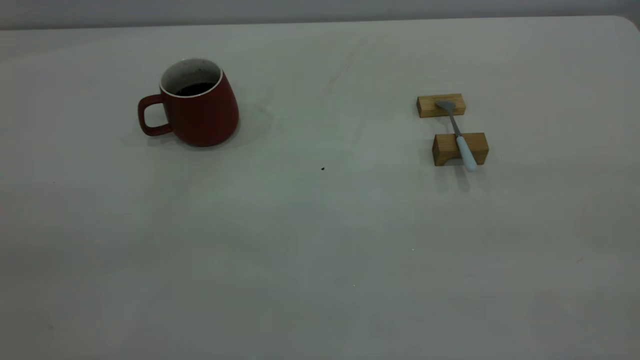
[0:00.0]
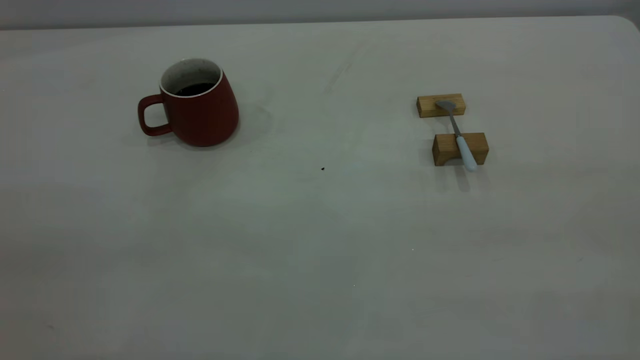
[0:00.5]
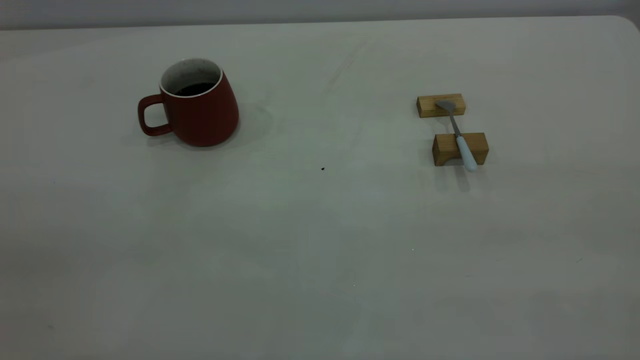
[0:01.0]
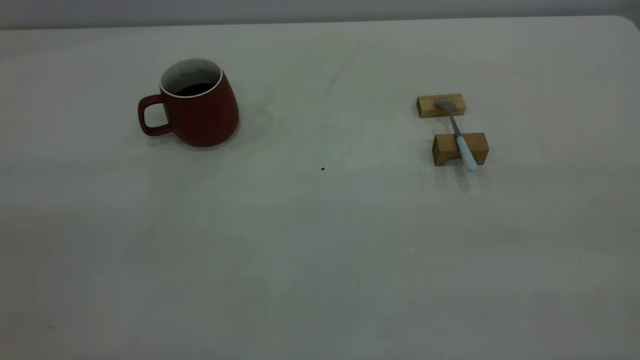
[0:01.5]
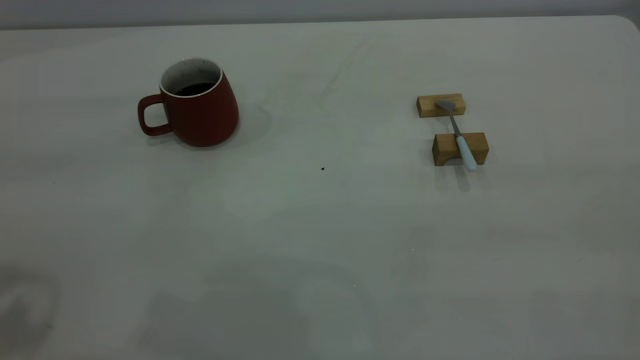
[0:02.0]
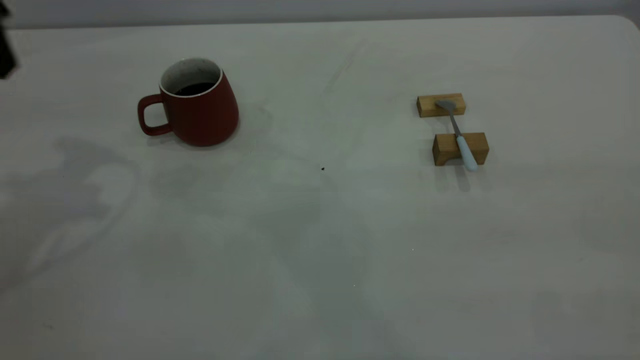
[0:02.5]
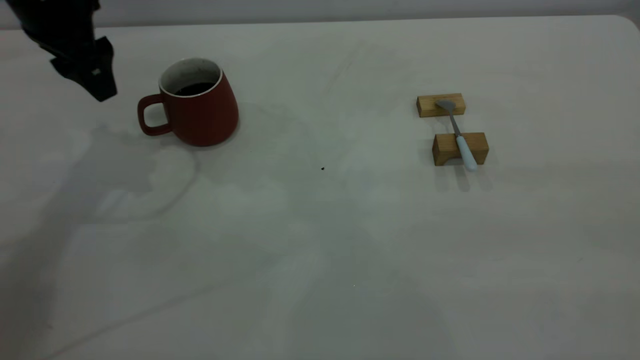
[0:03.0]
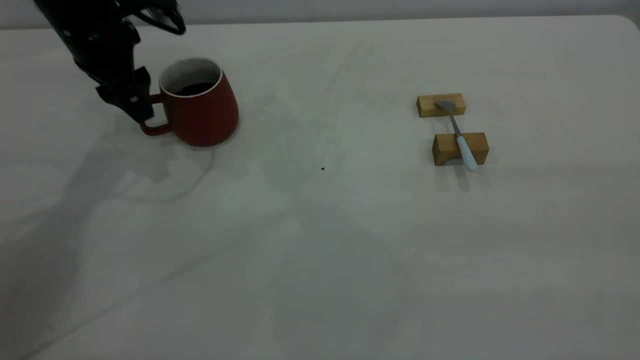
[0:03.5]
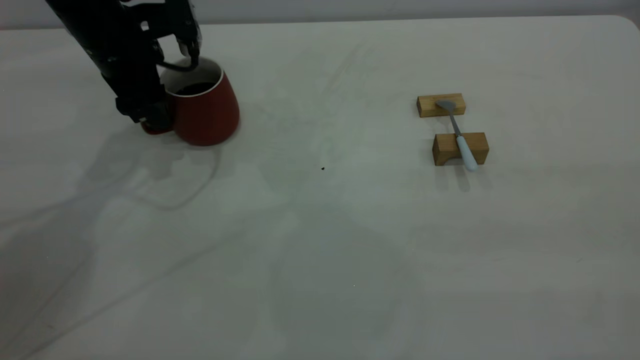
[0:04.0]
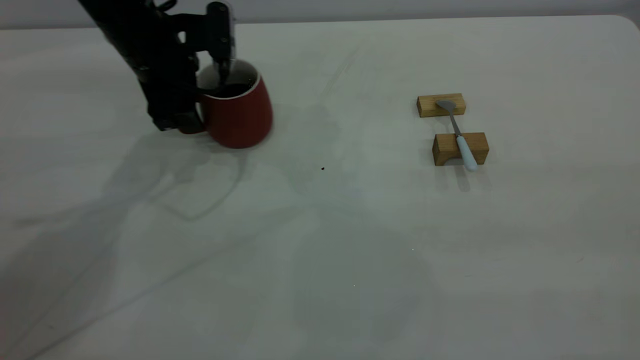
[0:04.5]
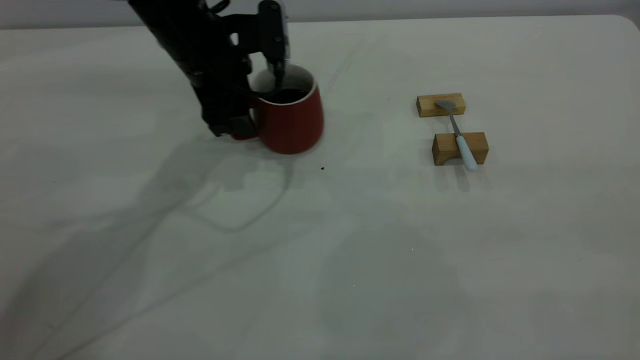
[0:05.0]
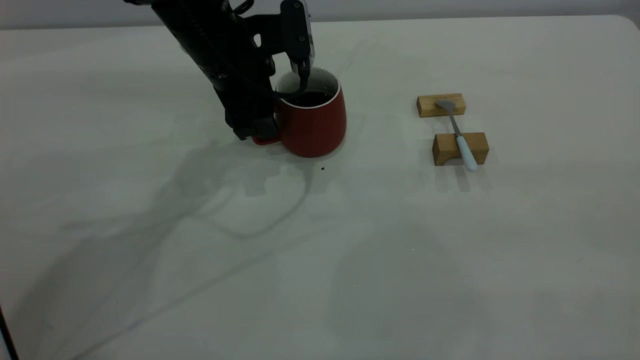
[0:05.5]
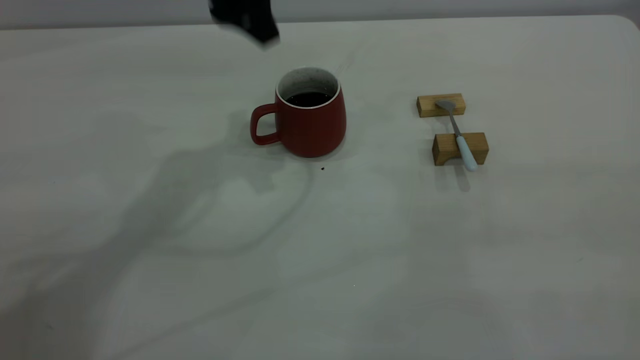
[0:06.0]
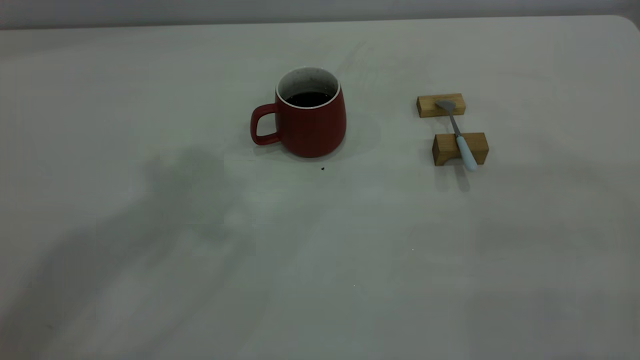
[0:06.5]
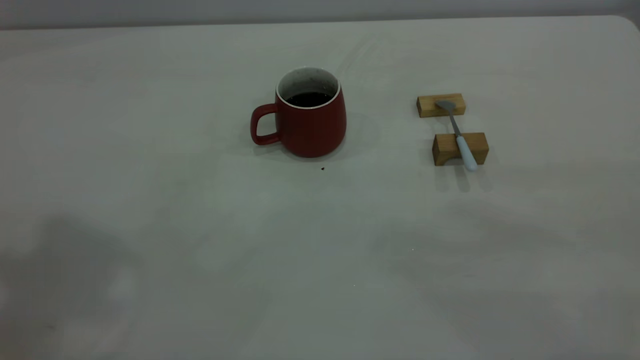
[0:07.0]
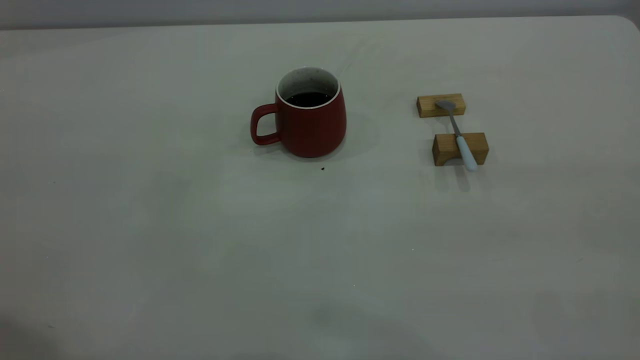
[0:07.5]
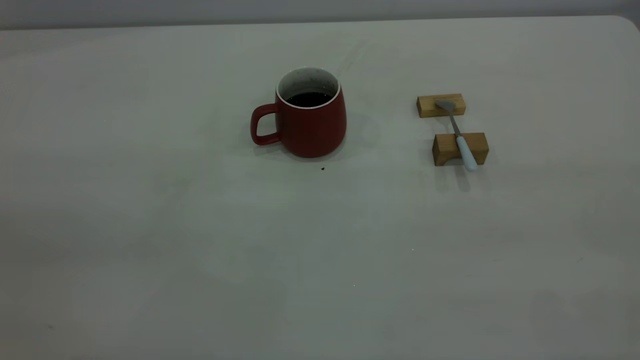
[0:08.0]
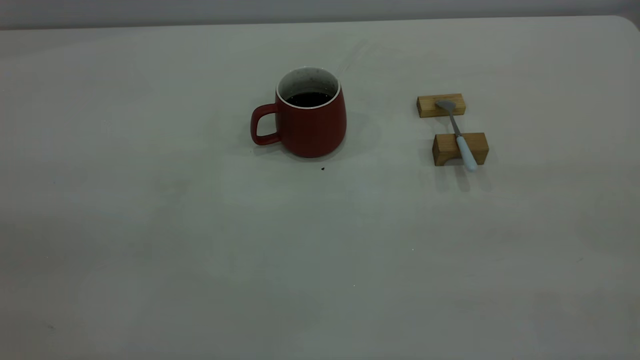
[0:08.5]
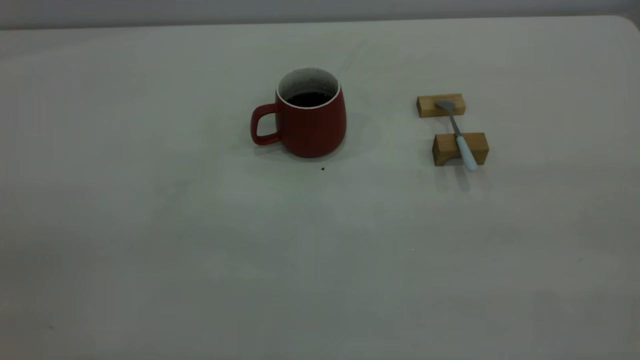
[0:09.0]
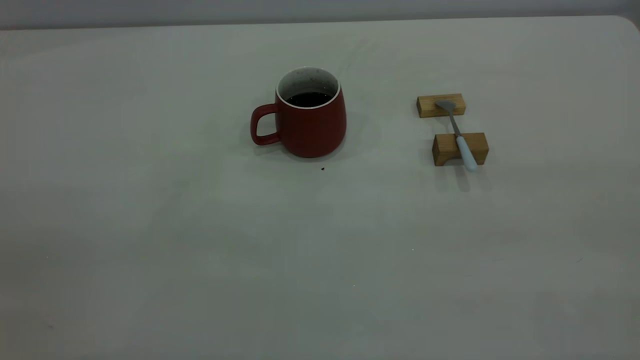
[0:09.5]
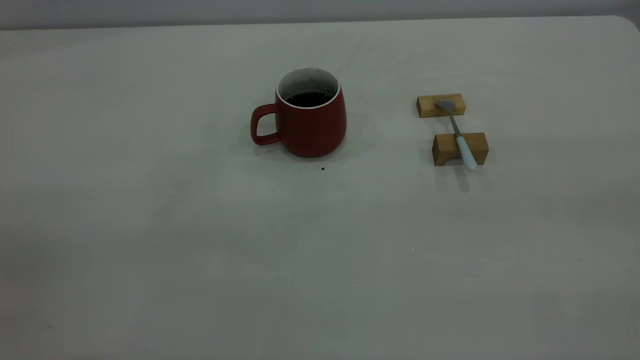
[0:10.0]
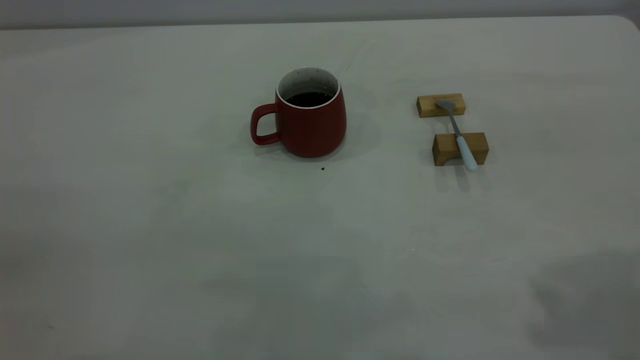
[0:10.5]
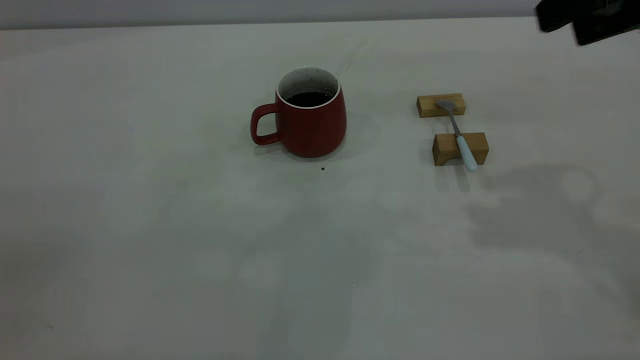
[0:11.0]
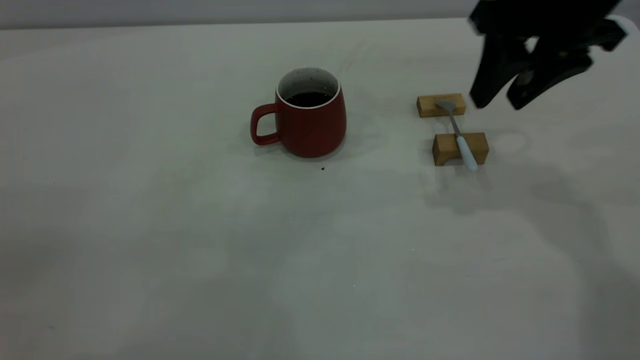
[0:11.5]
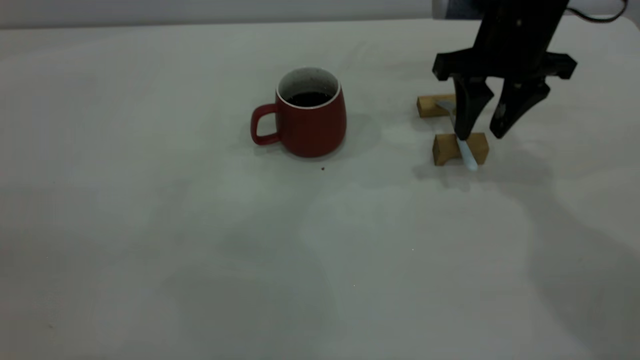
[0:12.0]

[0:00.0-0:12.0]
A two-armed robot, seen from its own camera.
Step, 0:00.0 to 0:05.5: Move the cup with coffee to the center of view.
0:02.0 to 0:04.0: The left gripper moves forward and downward, approximately 35 cm.
0:04.0 to 0:06.0: The left gripper goes about 20 cm upward and to the right.
0:06.0 to 0:08.0: The left gripper goes approximately 40 cm backward and to the left.
0:10.0 to 0:12.0: The right gripper goes roughly 40 cm forward and downward.

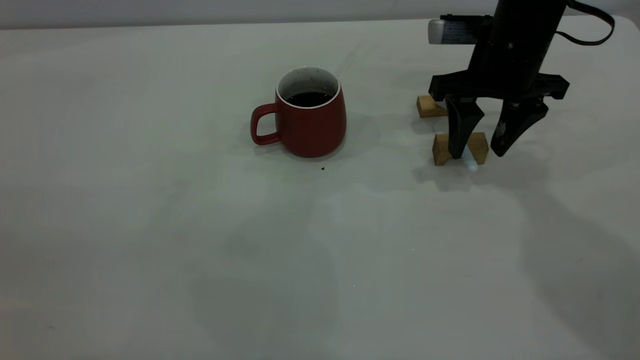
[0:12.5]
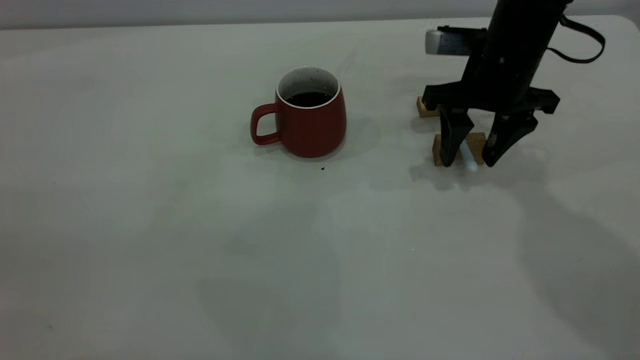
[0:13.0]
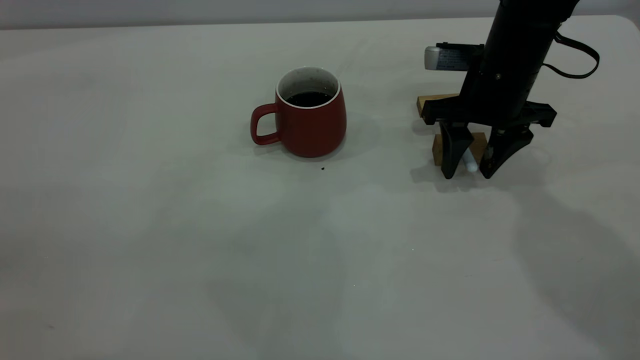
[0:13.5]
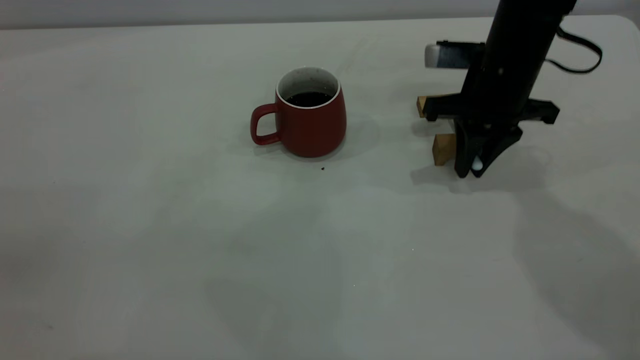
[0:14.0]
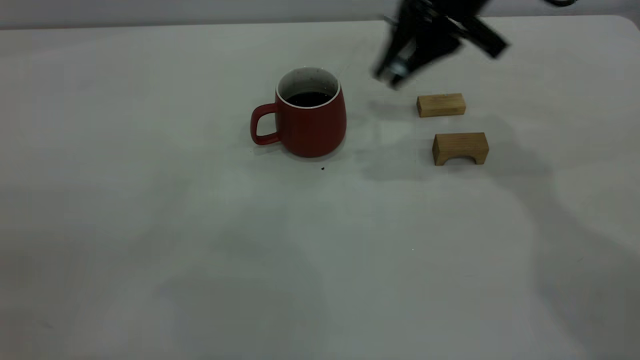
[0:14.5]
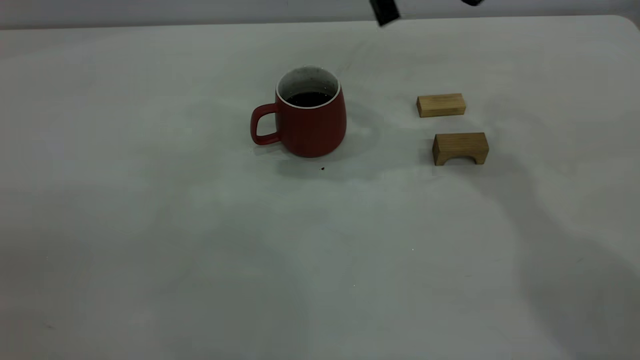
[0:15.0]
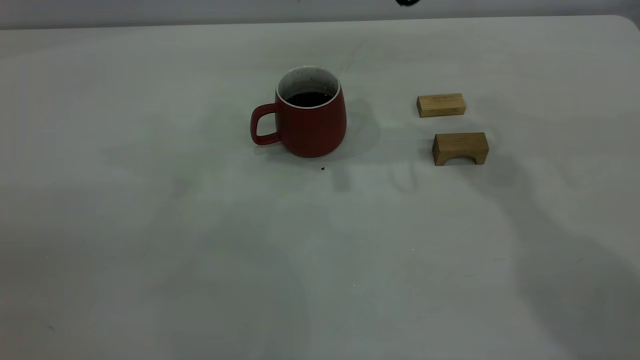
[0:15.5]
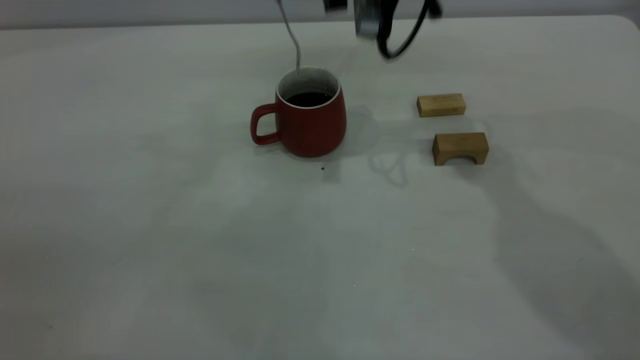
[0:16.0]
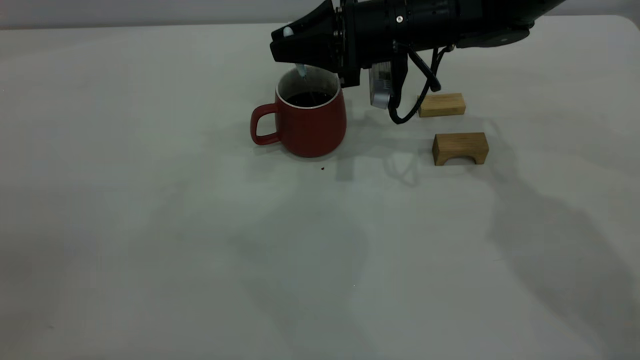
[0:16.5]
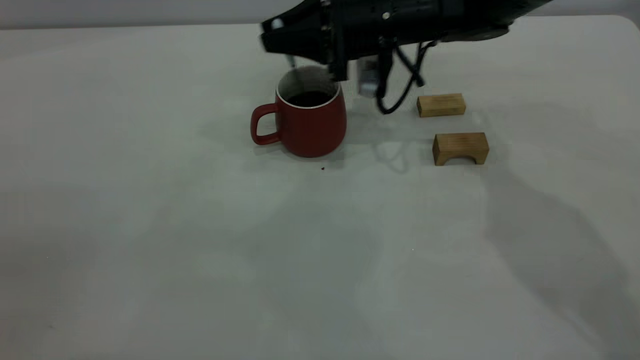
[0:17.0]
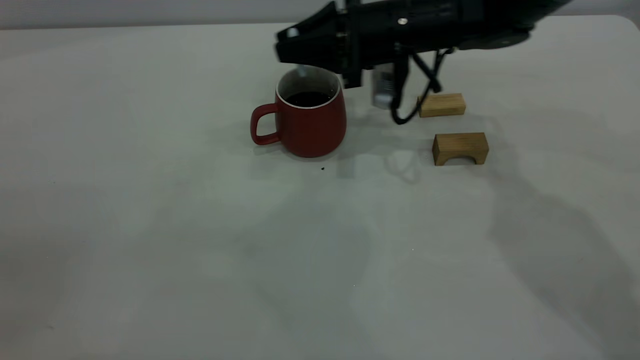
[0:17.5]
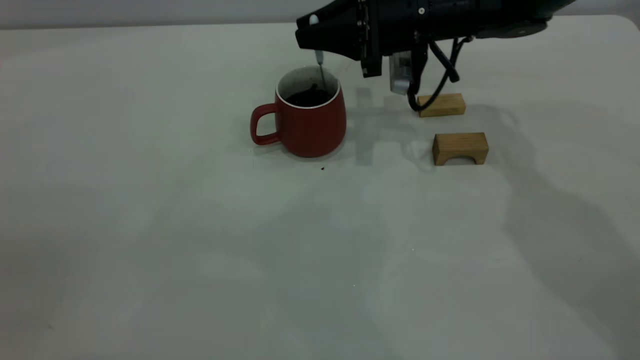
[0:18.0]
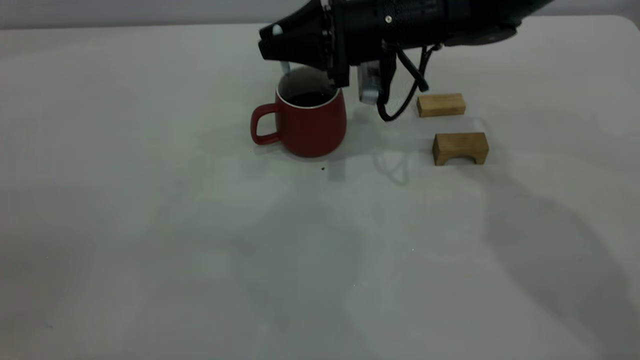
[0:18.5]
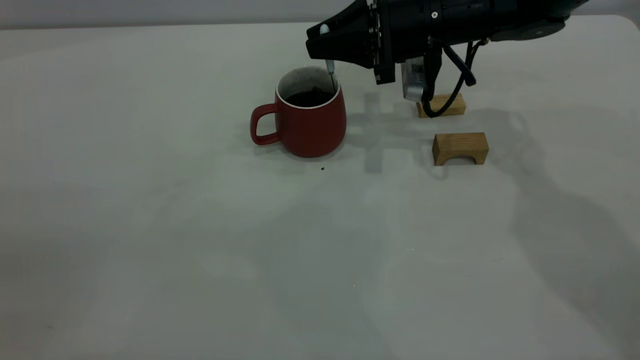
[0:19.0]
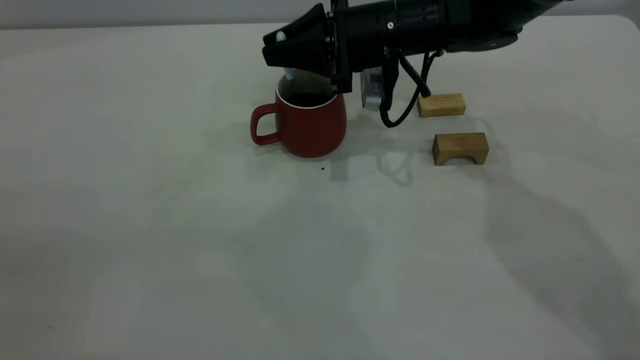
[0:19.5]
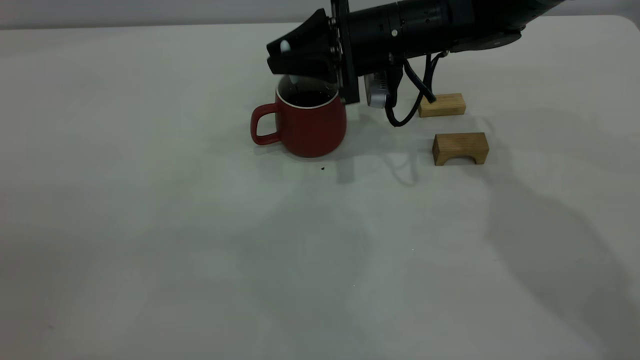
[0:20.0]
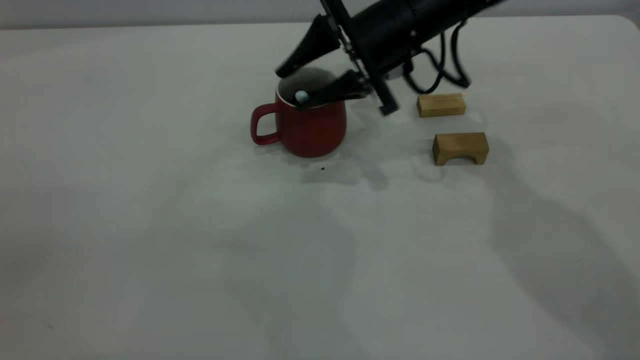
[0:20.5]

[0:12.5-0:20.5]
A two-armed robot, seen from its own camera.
0:12.5 to 0:14.5: The right gripper moves upward and to the left, about 10 cm, and closes its fingers.
0:14.5 to 0:16.5: The right gripper is displaced downward by about 10 cm.
0:16.5 to 0:18.5: The grippers move only a little.
0:18.5 to 0:20.5: The right gripper opens up.
